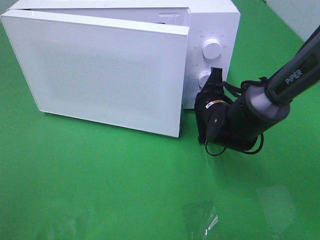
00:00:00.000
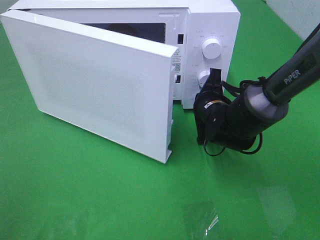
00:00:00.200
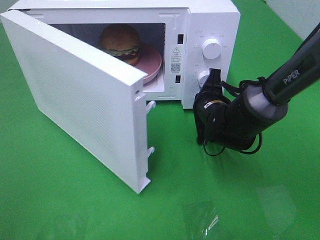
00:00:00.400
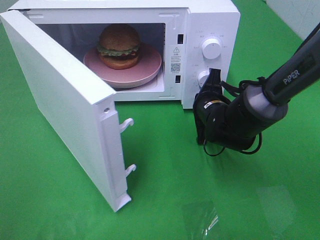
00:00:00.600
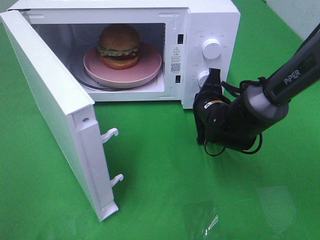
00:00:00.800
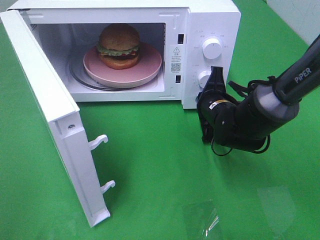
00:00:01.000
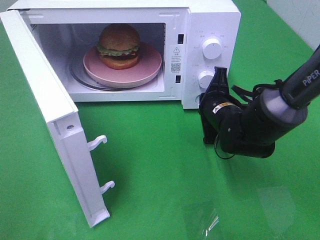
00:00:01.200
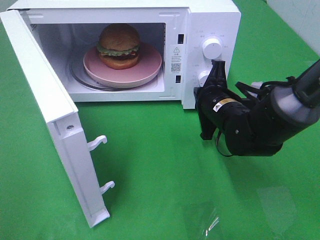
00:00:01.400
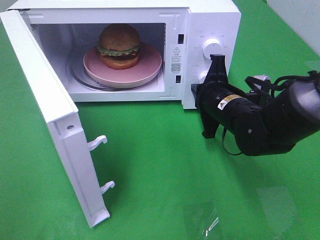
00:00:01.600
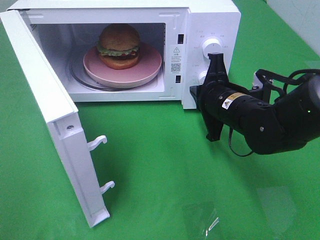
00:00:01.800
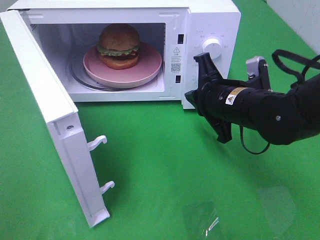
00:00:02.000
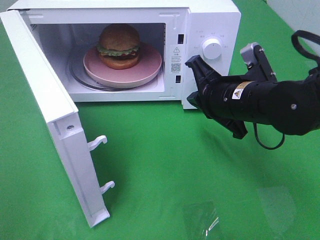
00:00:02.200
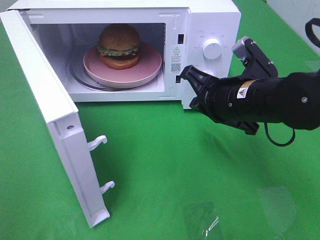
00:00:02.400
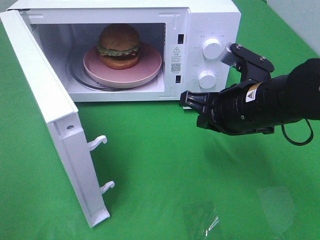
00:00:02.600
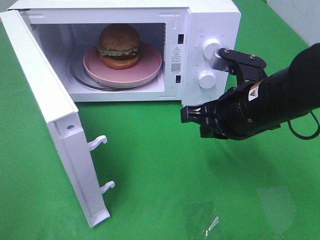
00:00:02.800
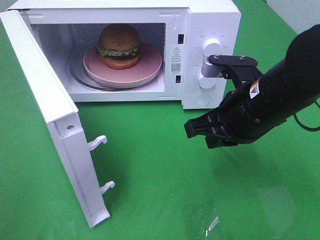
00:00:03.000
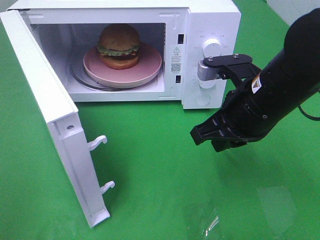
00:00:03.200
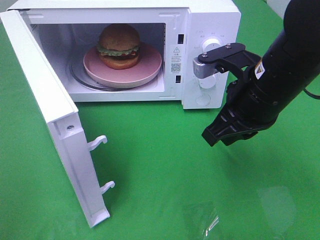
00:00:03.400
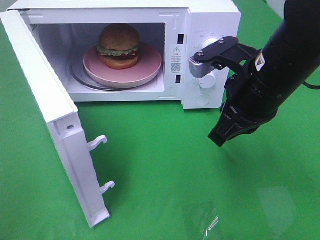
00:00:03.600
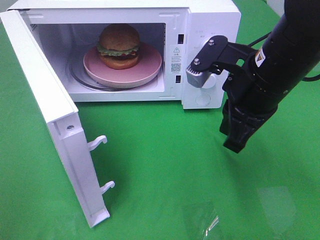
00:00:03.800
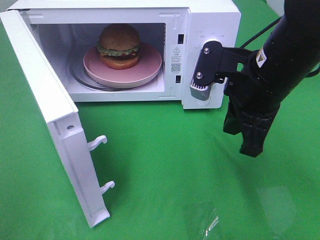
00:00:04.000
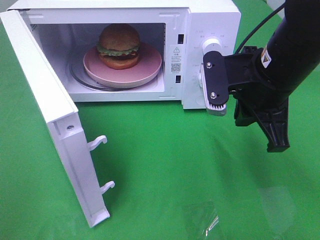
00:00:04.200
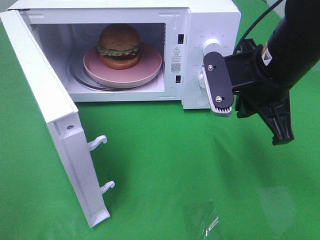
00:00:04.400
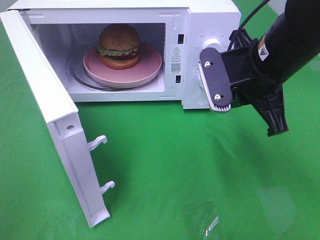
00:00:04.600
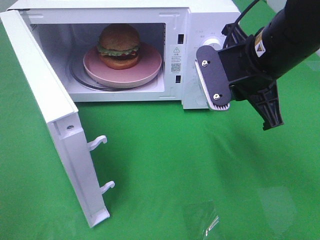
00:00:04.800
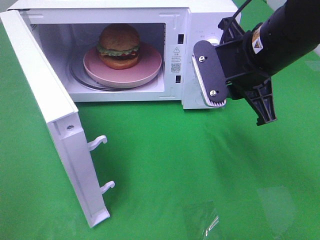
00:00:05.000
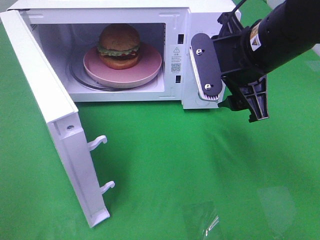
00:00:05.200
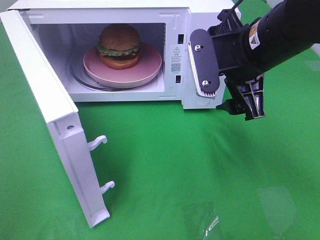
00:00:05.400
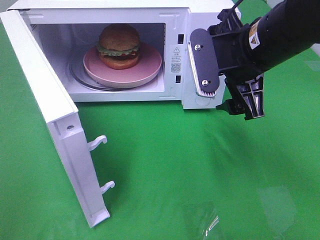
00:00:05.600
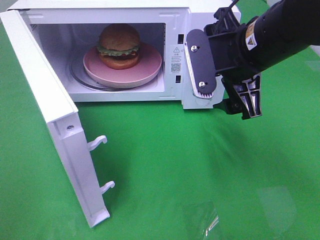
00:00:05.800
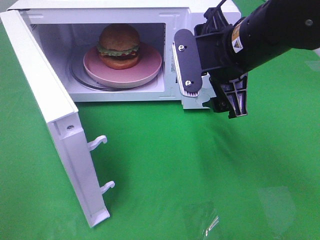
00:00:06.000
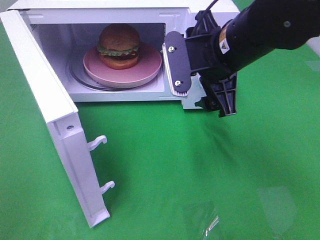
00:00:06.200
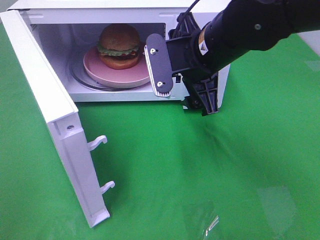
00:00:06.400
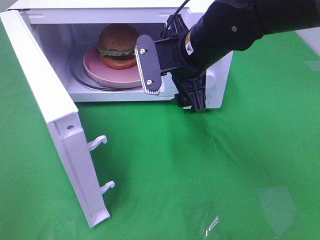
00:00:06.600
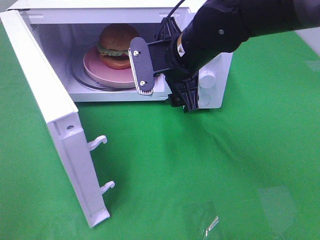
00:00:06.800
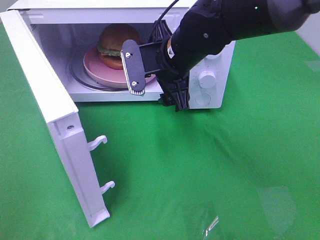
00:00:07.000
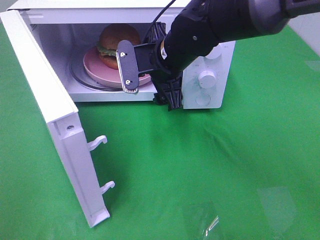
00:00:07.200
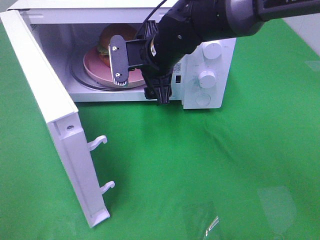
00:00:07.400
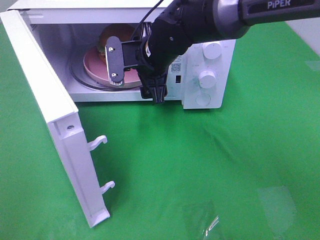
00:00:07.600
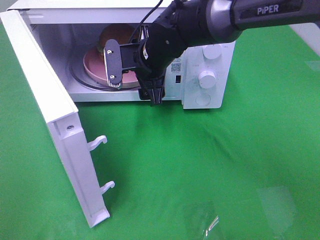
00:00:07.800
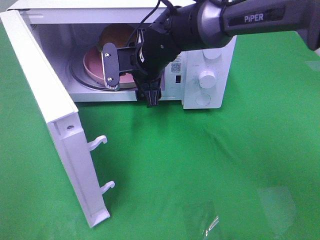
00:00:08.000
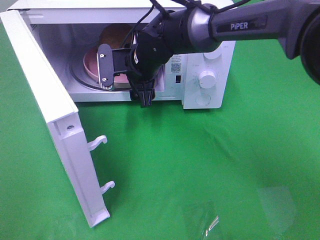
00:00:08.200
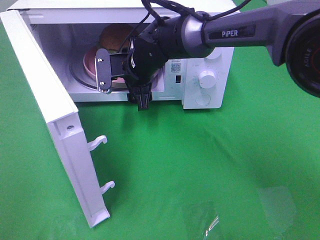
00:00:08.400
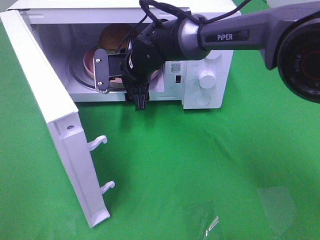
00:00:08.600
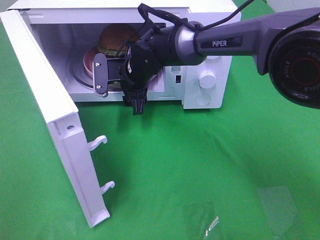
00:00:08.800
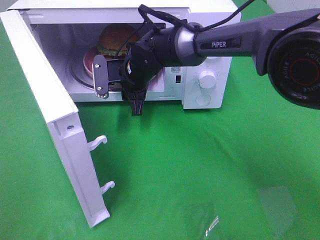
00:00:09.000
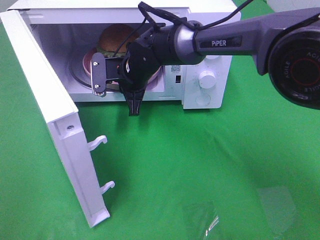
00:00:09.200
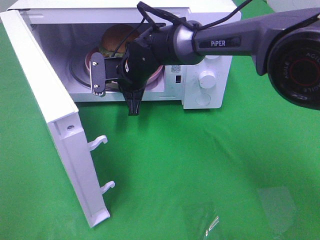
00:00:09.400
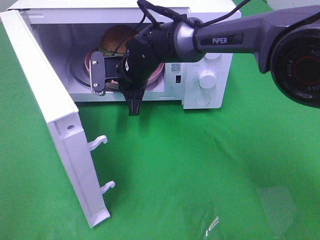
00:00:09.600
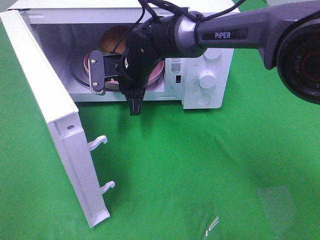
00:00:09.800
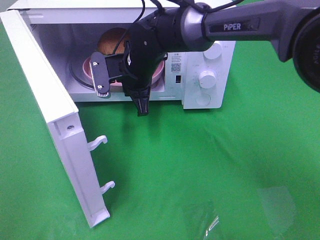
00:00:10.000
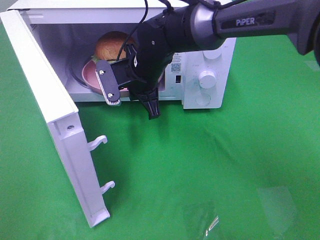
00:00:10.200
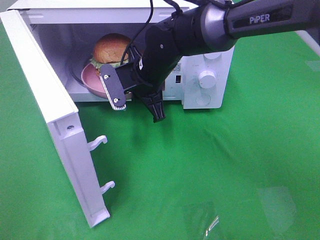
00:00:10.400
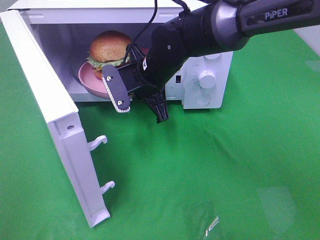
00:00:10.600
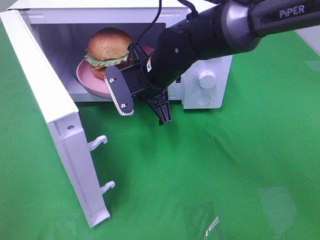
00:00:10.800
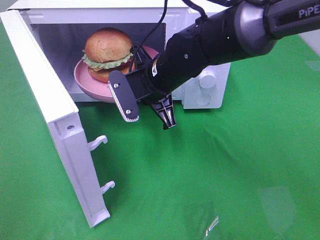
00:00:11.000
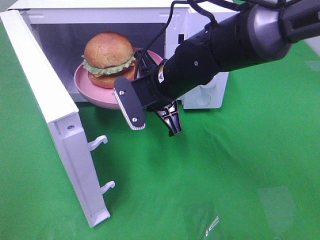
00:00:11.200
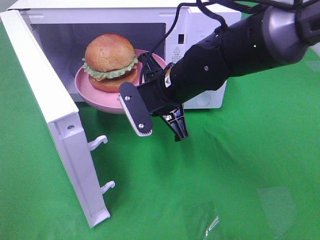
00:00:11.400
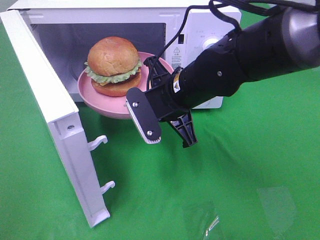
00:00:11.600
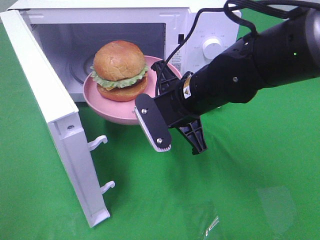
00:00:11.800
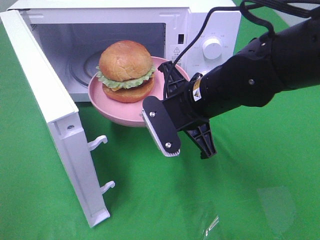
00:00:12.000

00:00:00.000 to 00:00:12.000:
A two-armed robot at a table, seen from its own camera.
Task of the whole recording: Heat the burger.
Step, 00:00:01.400 to 00:00:09.200: Right hand: grab the plate with the hamburger.
00:00:00.000 to 00:00:01.600: The right gripper shifts by about 5 cm.
00:00:01.600 to 00:00:03.000: The right gripper moves upward and backward, about 10 cm.
00:00:03.000 to 00:00:04.400: The right gripper moves some 5 cm.
00:00:04.400 to 00:00:06.000: The right gripper opens up.
00:00:06.000 to 00:00:07.600: The right gripper shifts approximately 15 cm to the left, forward and downward.
00:00:07.600 to 00:00:09.000: The right gripper shifts roughly 5 cm downward, and closes up.
00:00:09.000 to 00:00:10.400: The right gripper shifts by some 5 cm, and closes its fingers.
00:00:10.400 to 00:00:12.000: The right gripper shifts approximately 15 cm backward and to the right.

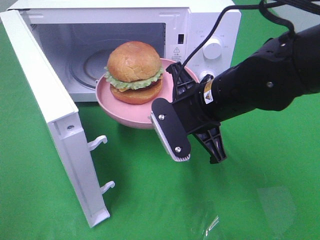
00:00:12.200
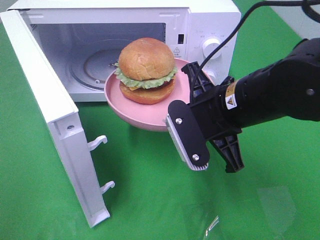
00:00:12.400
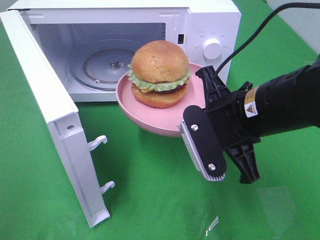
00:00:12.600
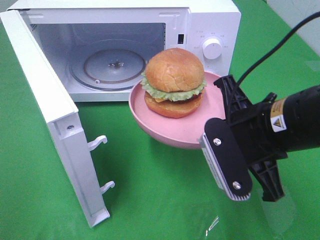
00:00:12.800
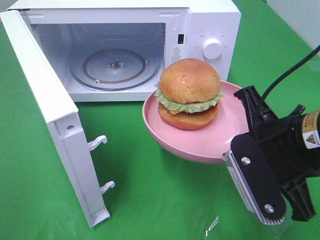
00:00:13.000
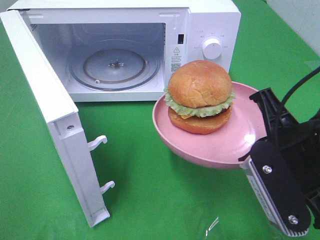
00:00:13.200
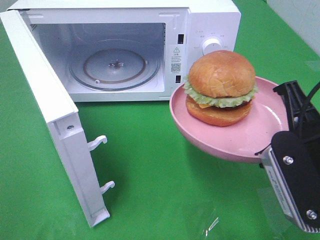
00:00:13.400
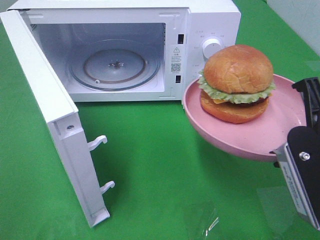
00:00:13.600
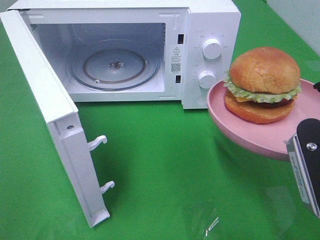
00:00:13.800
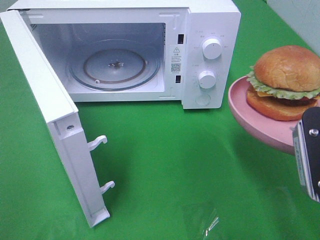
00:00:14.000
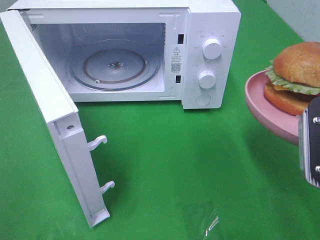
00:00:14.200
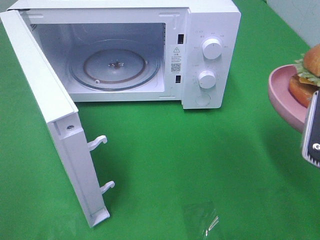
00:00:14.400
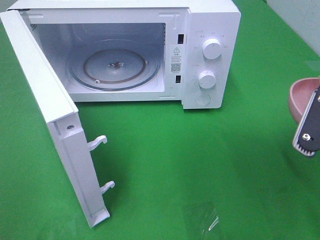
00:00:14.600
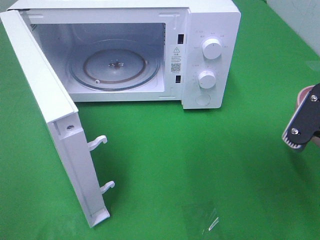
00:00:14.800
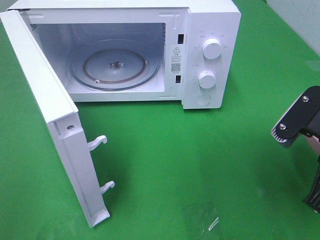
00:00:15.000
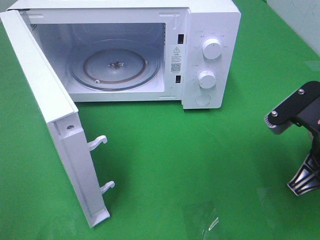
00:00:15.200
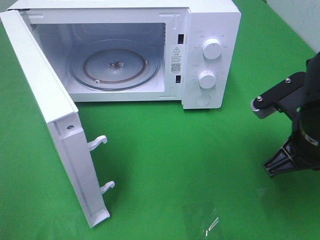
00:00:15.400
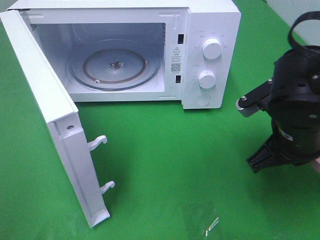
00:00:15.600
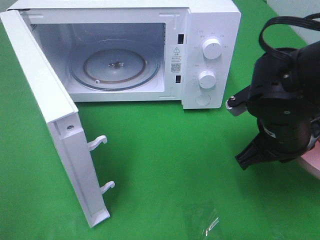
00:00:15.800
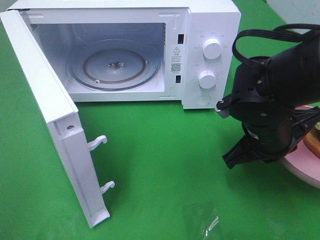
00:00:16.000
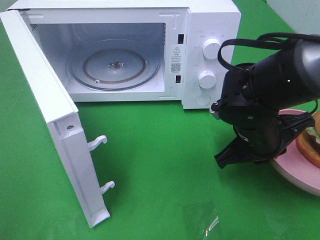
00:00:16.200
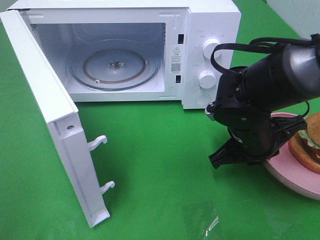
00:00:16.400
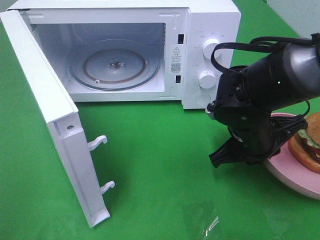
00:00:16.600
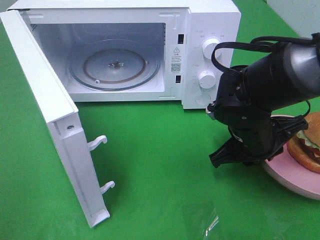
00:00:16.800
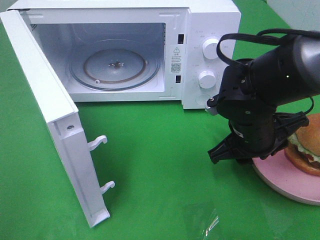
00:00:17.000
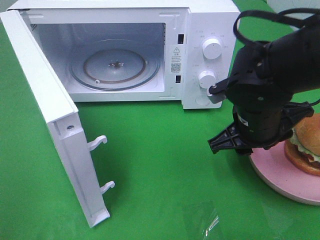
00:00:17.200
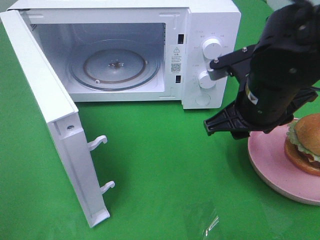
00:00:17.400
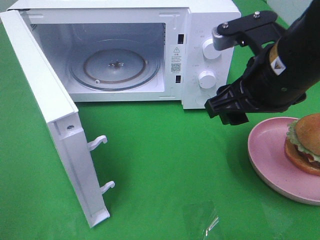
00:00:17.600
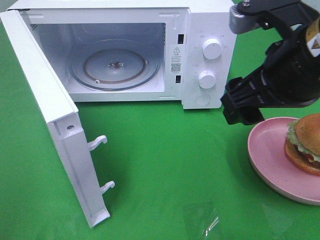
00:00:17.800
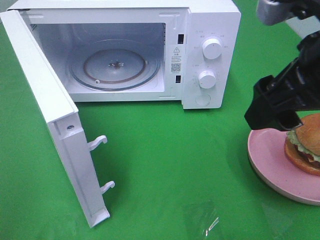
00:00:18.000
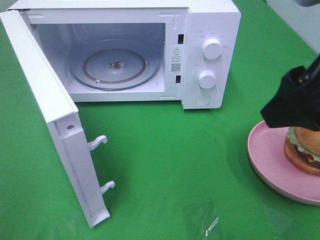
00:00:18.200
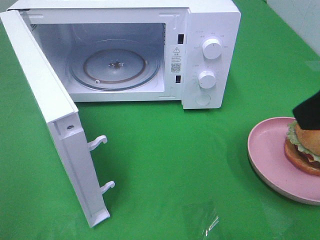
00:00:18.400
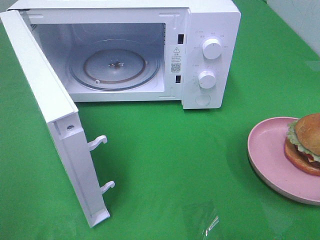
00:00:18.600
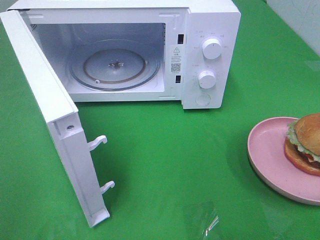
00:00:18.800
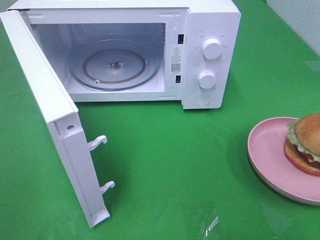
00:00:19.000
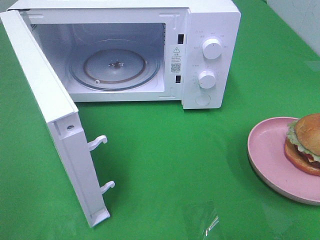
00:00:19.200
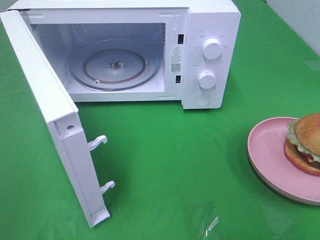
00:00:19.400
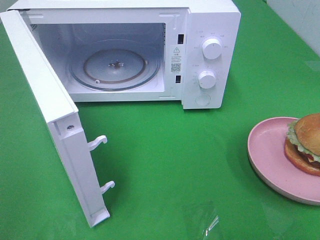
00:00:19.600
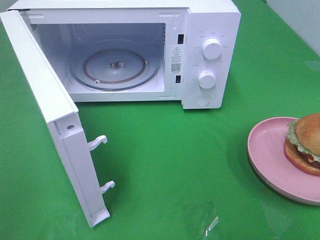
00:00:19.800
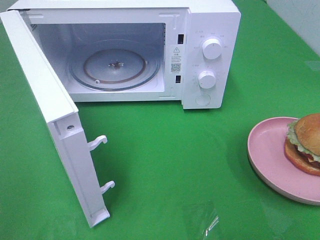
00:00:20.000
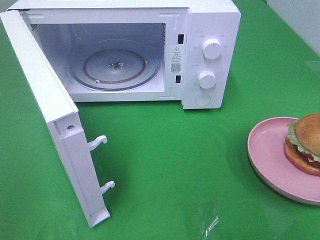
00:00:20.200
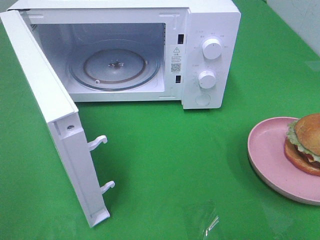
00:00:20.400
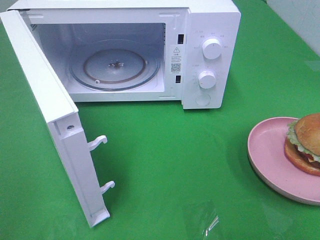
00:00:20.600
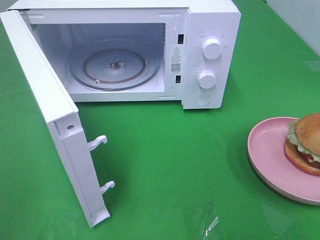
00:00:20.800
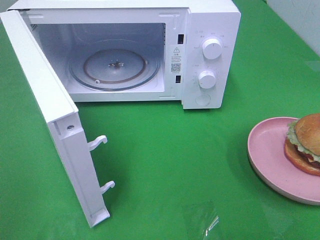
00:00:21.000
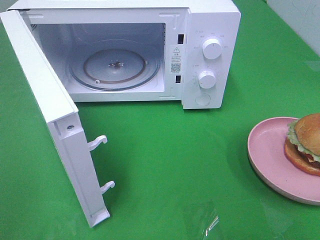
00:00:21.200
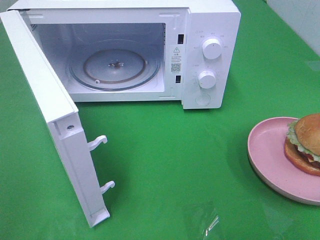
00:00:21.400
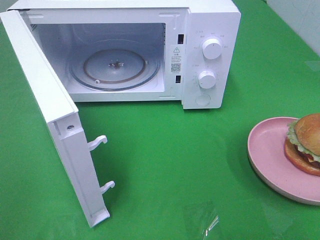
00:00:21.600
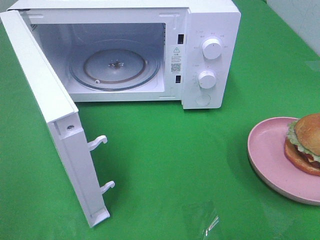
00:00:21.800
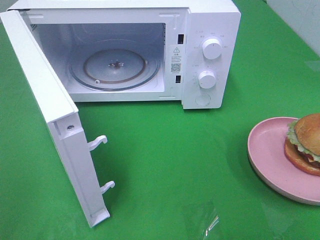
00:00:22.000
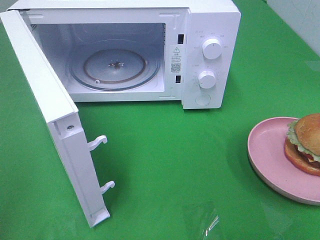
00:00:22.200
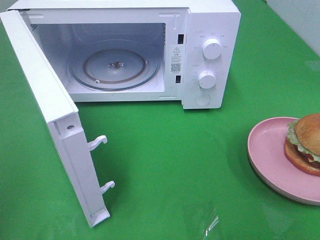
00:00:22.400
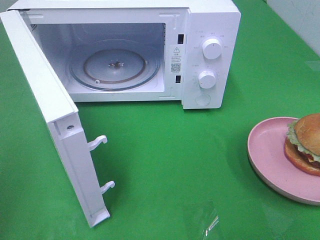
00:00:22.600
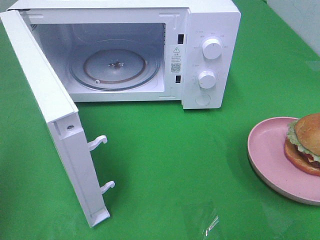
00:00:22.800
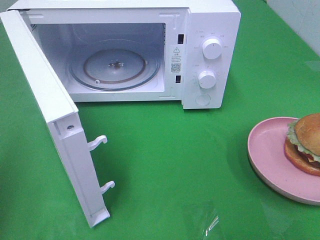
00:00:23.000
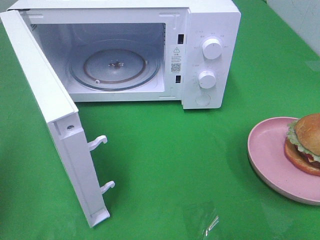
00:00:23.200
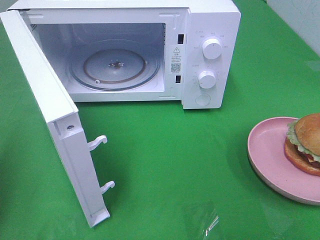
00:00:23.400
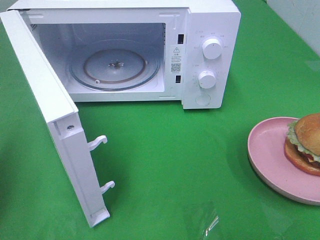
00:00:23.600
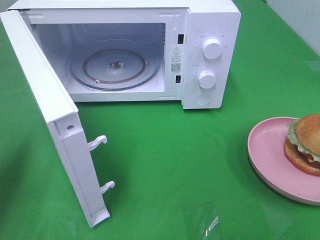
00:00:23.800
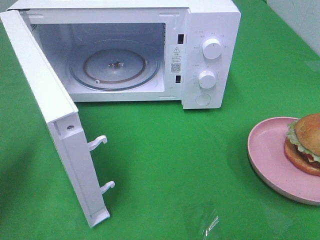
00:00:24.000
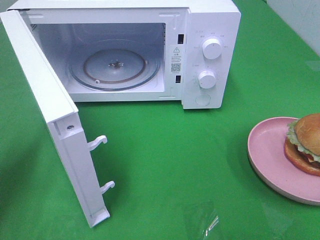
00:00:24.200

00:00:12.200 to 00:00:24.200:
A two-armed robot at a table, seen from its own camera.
Task of the whole recording: Heat the burger.
Step, 00:00:12.200 to 00:00:16.800: Right hand: place the plate on the table.
00:00:12.200 to 00:00:13.800: The right gripper is displaced to the right, backward and upward by about 20 cm.
00:00:13.800 to 00:00:15.200: The right gripper moves roughly 5 cm.
00:00:15.200 to 00:00:16.600: The right gripper is displaced forward, downward and to the left by roughly 15 cm.
00:00:16.600 to 00:00:18.200: The right gripper heads upward and backward, covering about 25 cm, and opens up.
00:00:18.200 to 00:00:19.800: The right gripper heads backward and to the right, covering some 20 cm.
00:00:19.800 to 00:00:21.200: Both grippers stay put.
00:00:22.600 to 00:00:24.200: The left gripper goes about 20 cm forward and downward.
